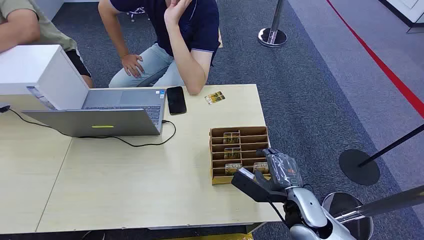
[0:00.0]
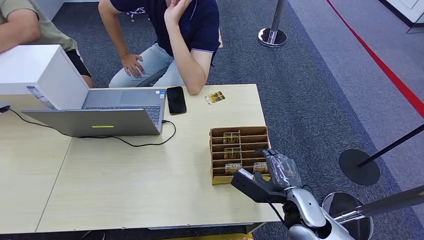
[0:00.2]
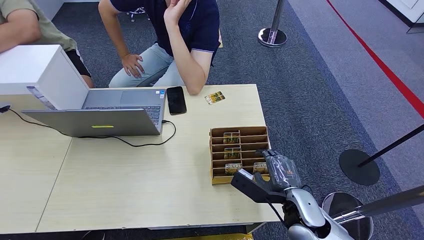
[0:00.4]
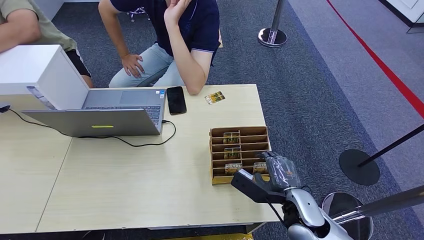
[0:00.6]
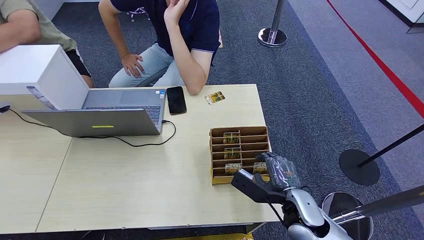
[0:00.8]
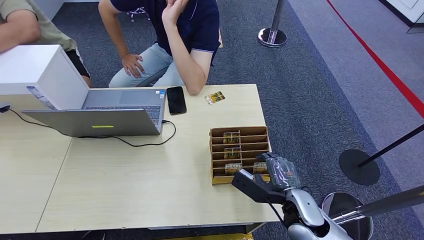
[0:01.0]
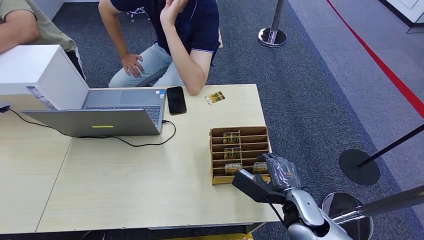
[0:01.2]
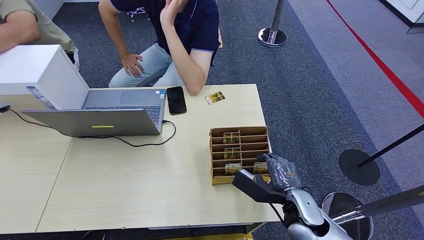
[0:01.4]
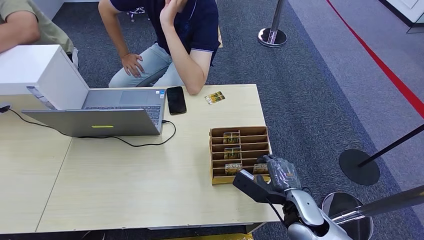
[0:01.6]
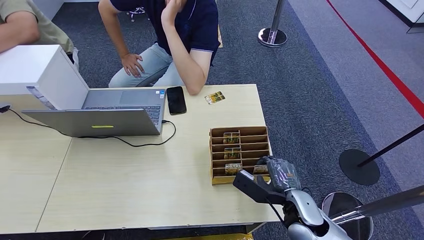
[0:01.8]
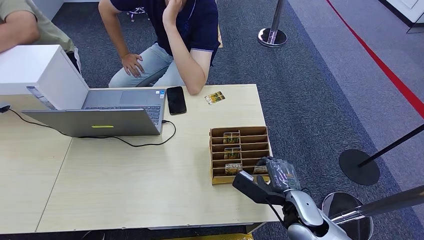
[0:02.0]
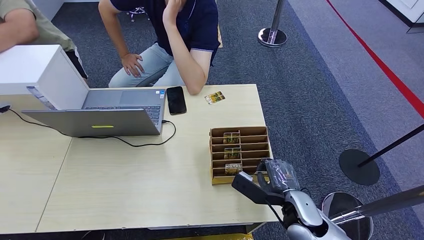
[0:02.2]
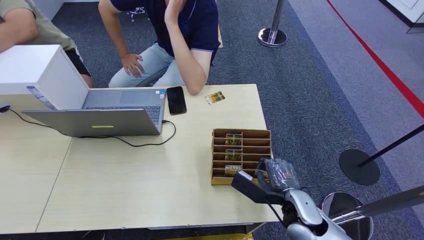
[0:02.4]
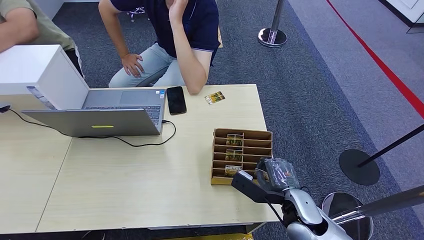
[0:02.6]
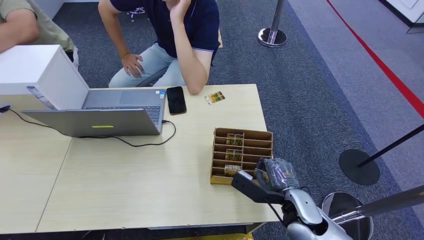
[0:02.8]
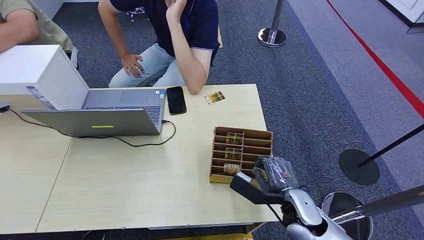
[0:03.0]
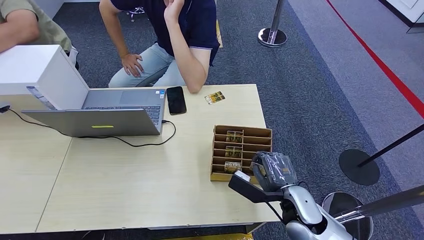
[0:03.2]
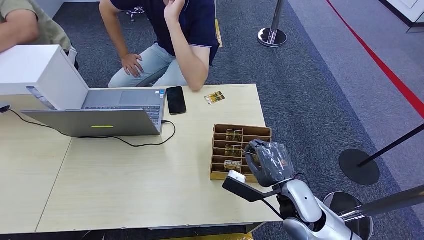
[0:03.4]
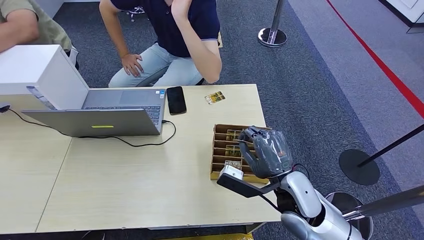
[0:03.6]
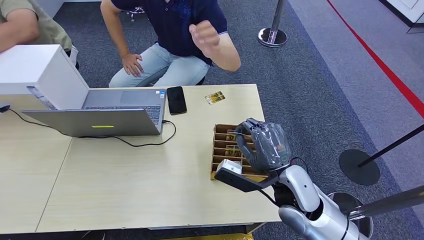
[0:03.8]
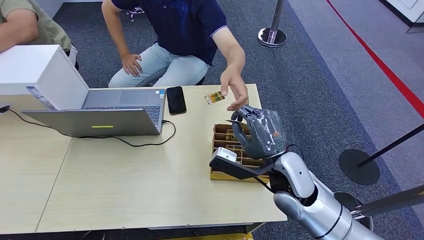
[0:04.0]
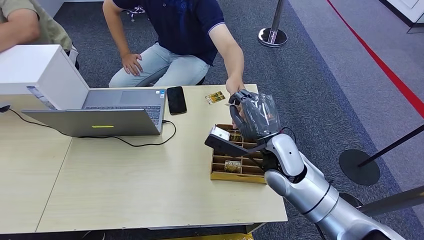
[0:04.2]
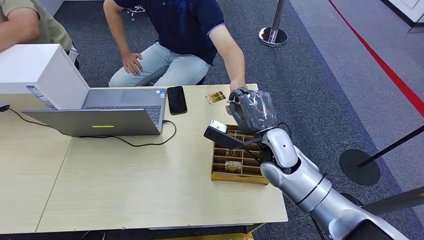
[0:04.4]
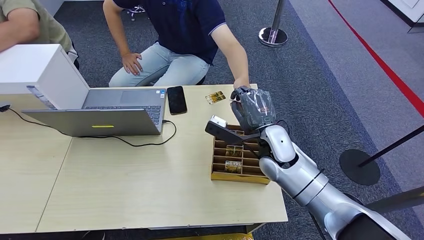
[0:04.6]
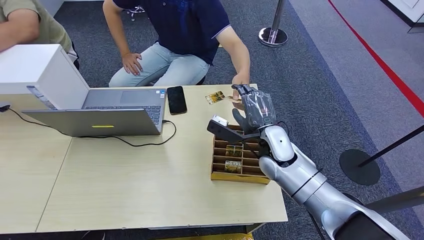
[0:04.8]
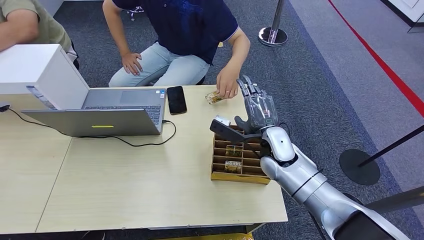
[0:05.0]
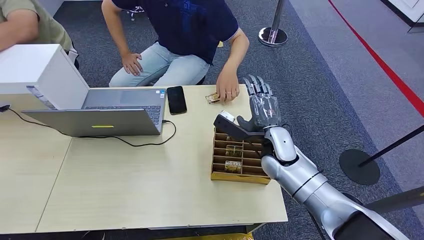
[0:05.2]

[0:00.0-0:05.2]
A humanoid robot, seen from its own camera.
Step, 0:00.0 to 0:03.2: Pick up the key card from the card box.
Step, 0:03.6 to 0:05.0: Hand the key card to the target.
0:03.4 to 0:05.2: The right hand is displaced forward by some 15 cm.

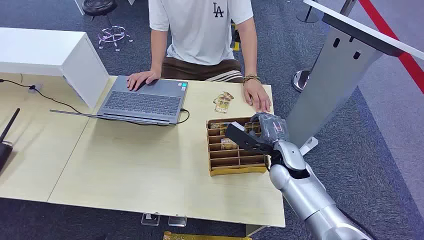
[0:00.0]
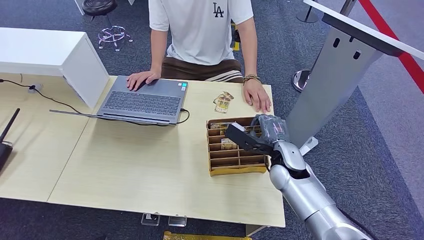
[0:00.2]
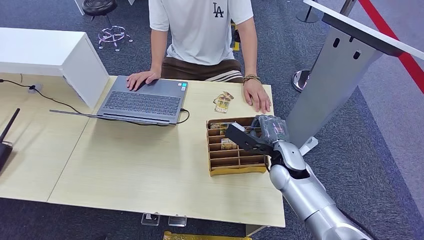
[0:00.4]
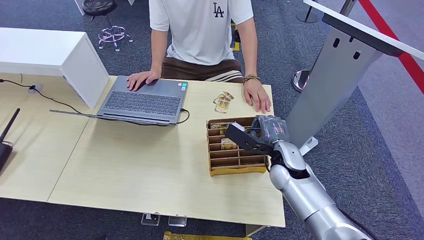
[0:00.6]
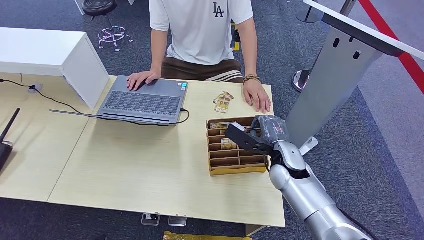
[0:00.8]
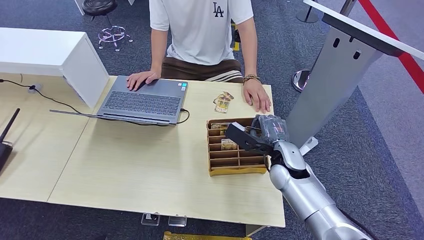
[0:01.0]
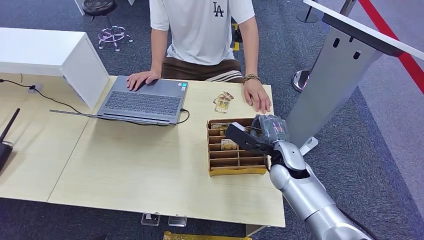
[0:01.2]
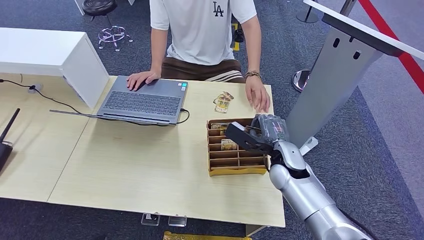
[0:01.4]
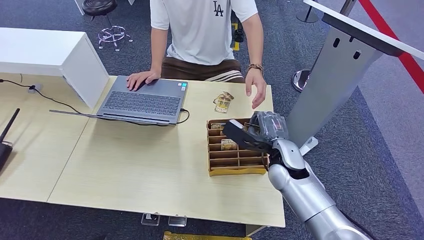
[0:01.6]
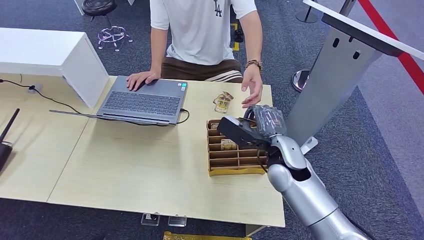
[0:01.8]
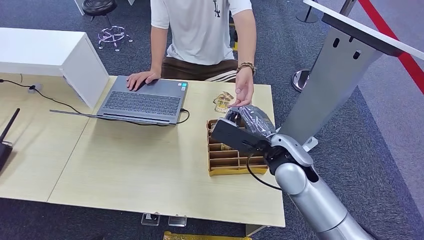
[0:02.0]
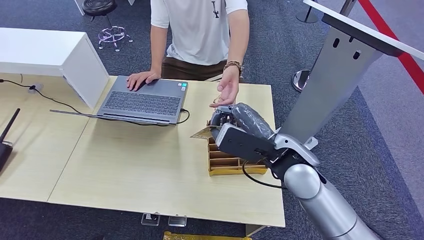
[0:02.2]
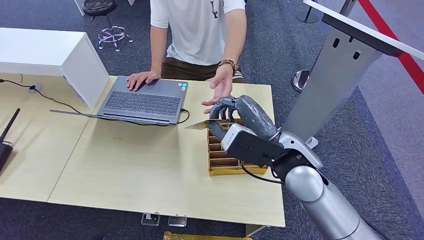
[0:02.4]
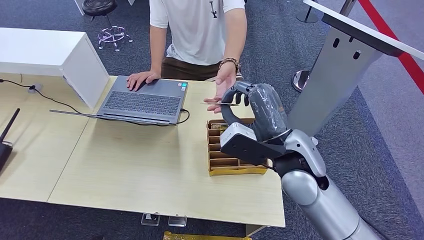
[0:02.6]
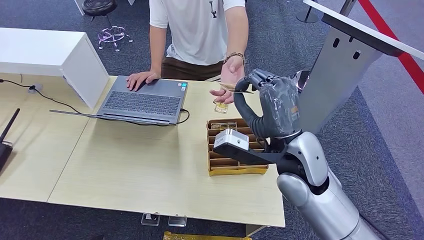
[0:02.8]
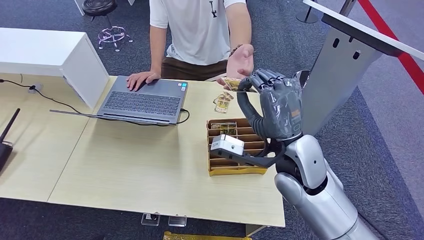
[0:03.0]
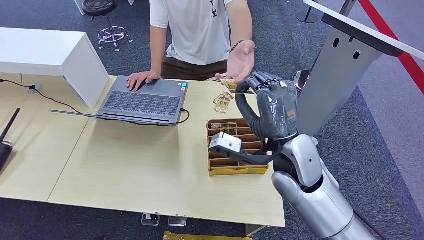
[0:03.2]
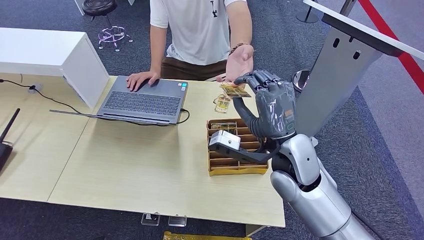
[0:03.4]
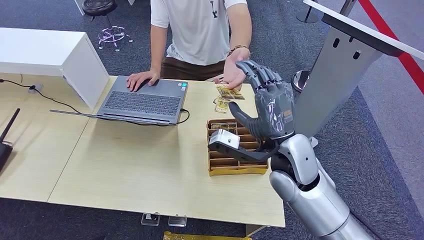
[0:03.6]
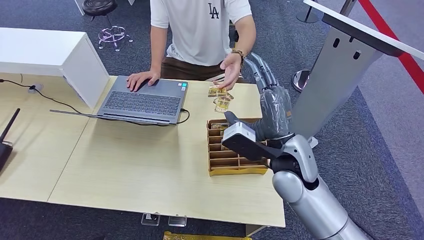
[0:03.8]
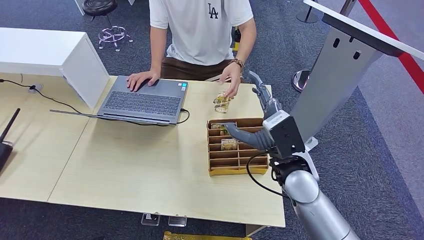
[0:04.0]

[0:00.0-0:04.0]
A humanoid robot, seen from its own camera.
Step, 0:00.0 to 0:02.0: Pick up the key card from the card box.
Step, 0:02.2 to 0:04.0: Hand the key card to the target.
0:01.4 to 0:02.6: The right hand is displaced upward and backward by some 15 cm.
0:02.6 to 0:04.0: The right hand moves downward, about 5 cm.
